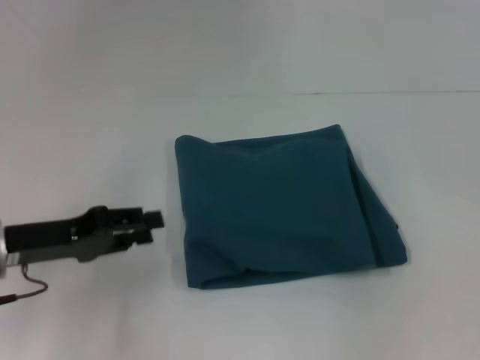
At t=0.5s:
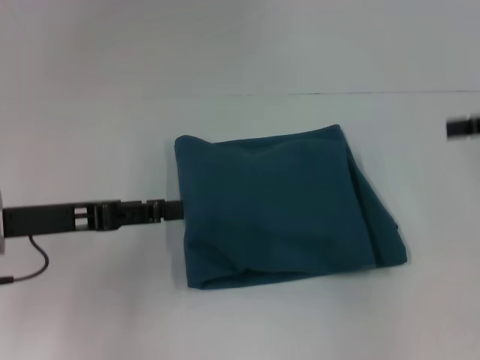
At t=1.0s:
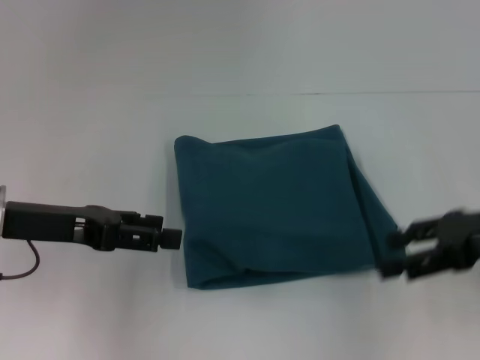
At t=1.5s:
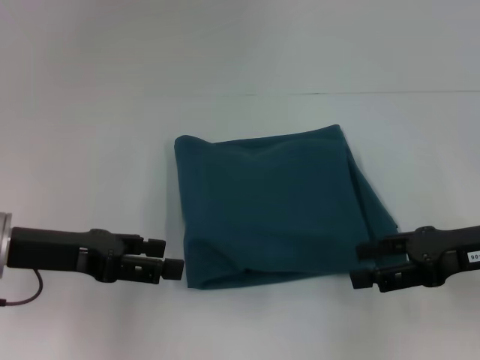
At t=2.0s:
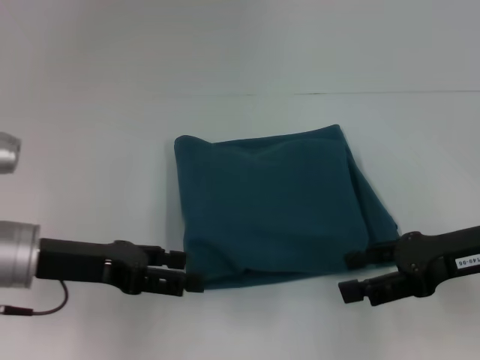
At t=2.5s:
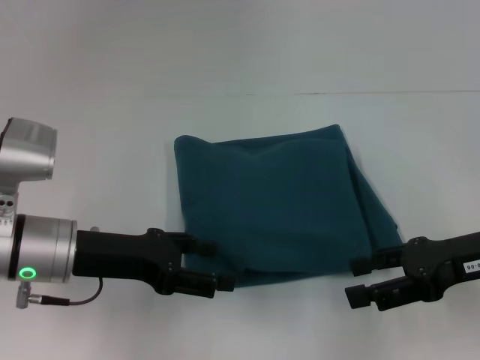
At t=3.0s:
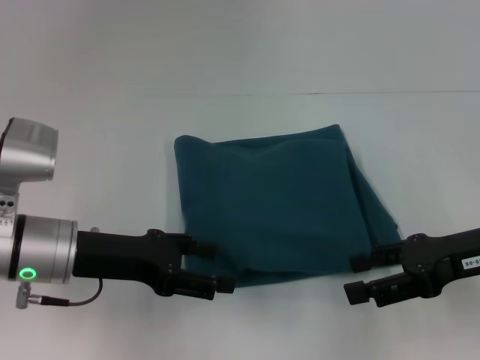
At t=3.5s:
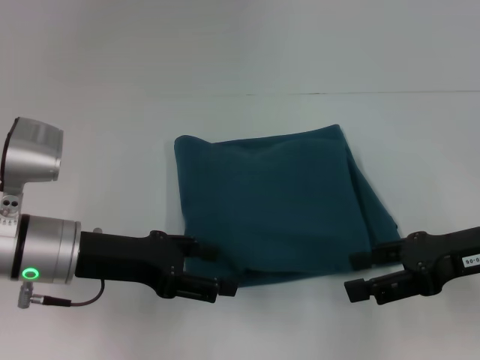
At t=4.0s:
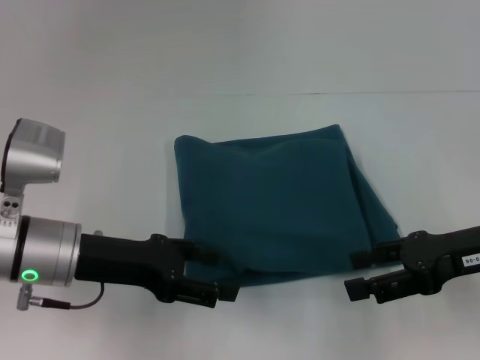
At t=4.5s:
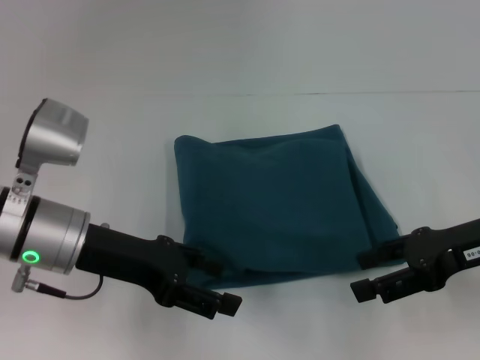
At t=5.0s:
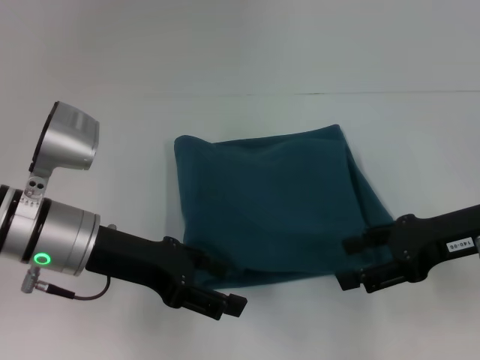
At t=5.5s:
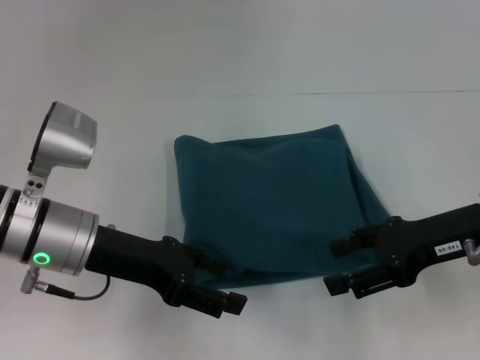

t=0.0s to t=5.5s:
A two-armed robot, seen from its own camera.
t=0.0s to t=2.0s: The left gripper opens up, while the right gripper travels to the left, downward and backward by approximately 20 cm.
t=2.0s to t=5.5s: The grippers stay close to where they were, moving slightly.

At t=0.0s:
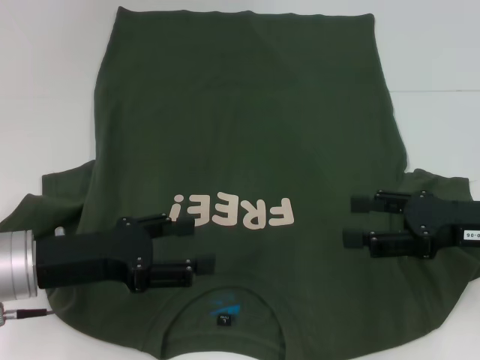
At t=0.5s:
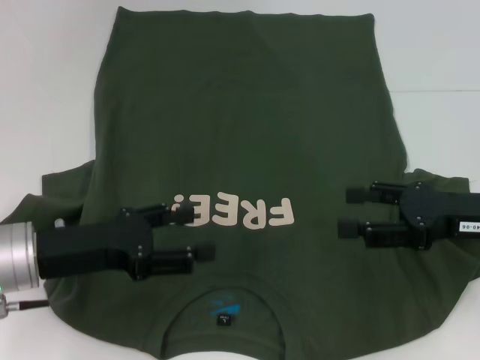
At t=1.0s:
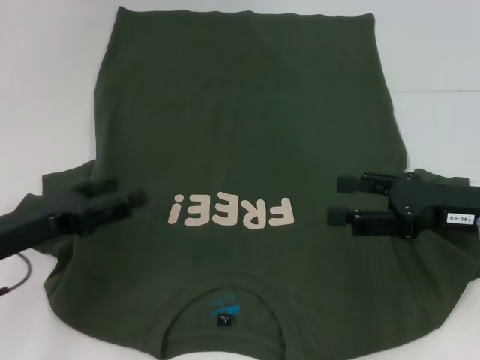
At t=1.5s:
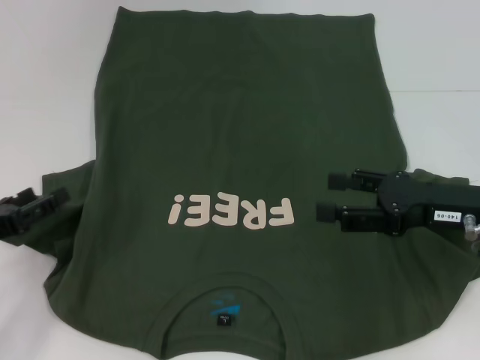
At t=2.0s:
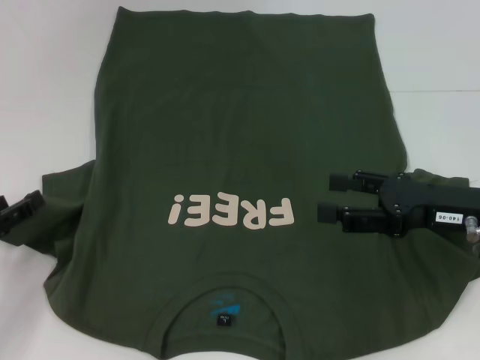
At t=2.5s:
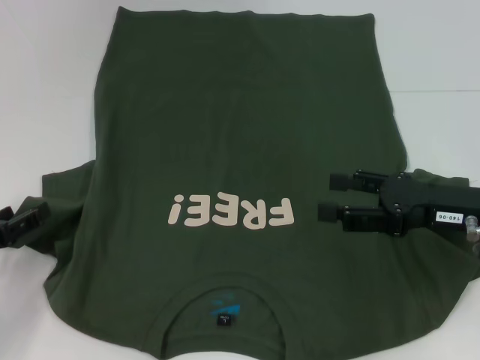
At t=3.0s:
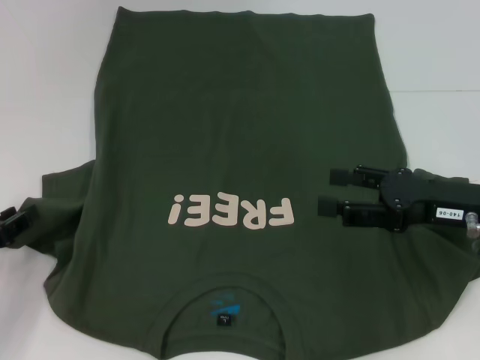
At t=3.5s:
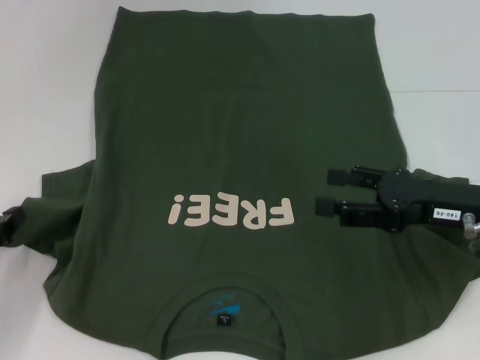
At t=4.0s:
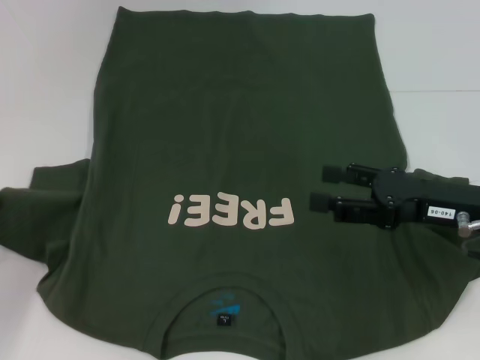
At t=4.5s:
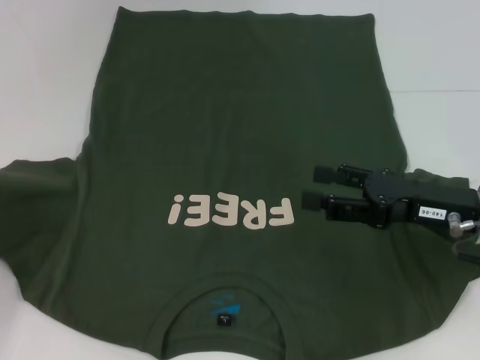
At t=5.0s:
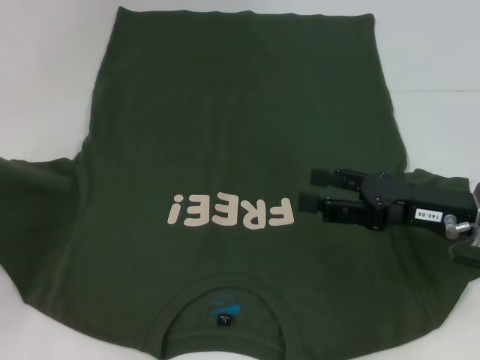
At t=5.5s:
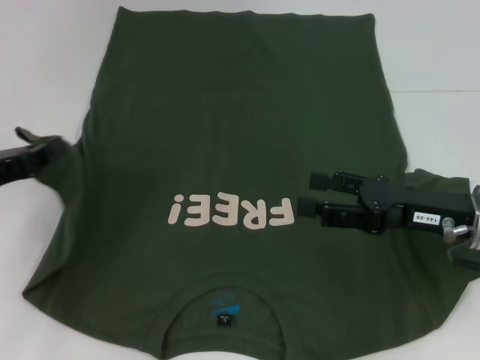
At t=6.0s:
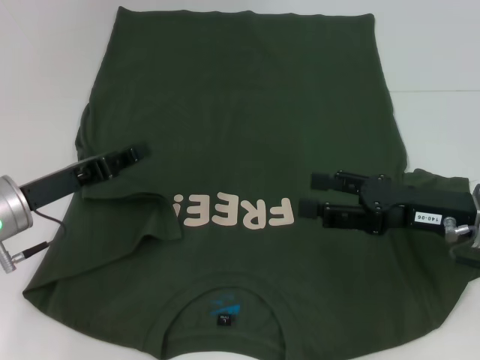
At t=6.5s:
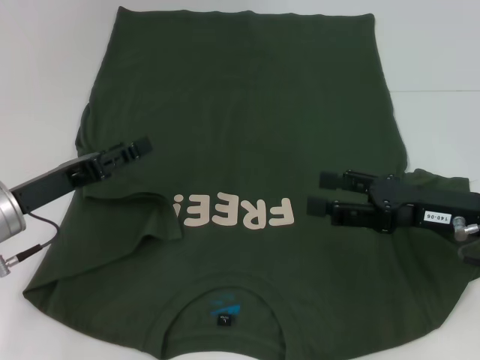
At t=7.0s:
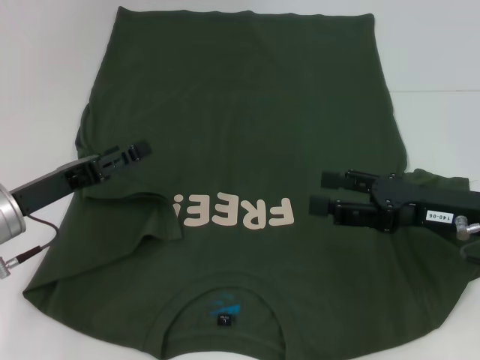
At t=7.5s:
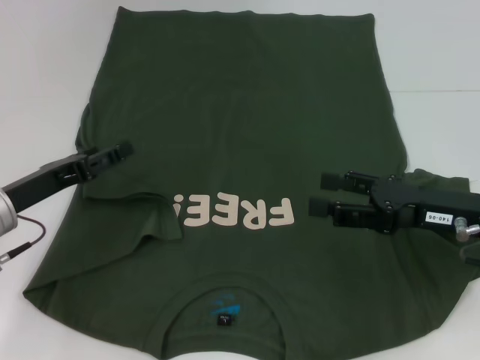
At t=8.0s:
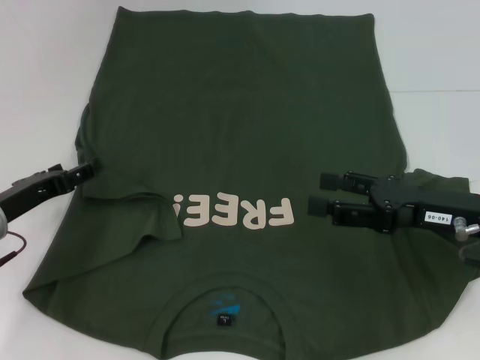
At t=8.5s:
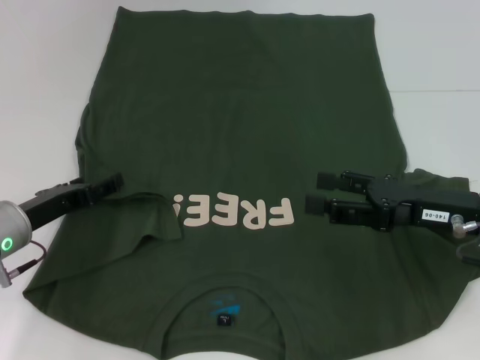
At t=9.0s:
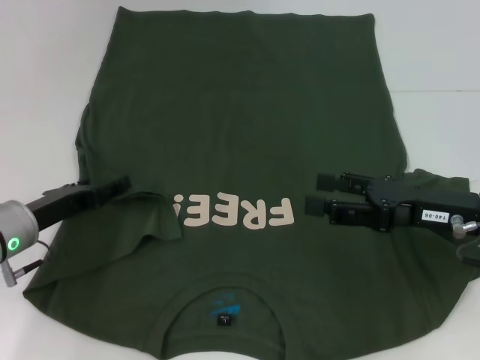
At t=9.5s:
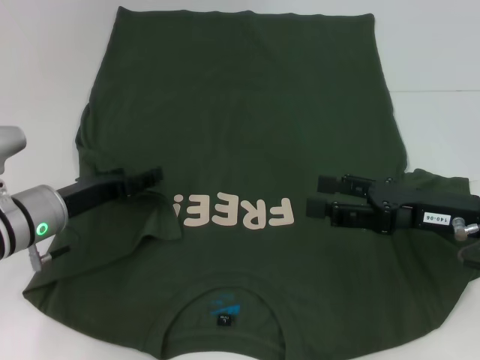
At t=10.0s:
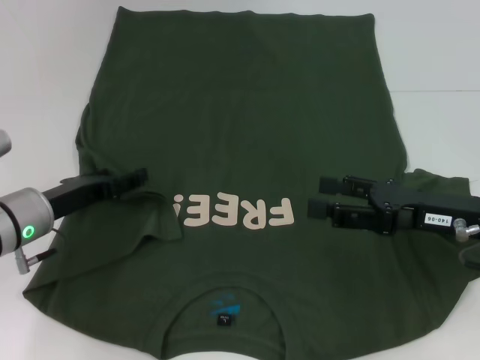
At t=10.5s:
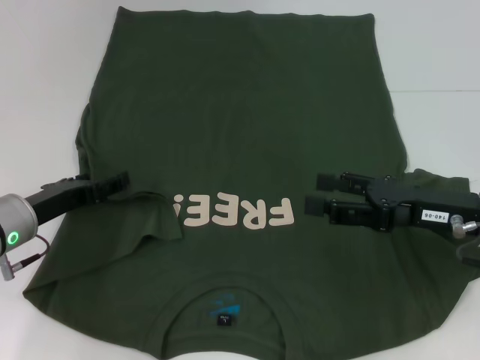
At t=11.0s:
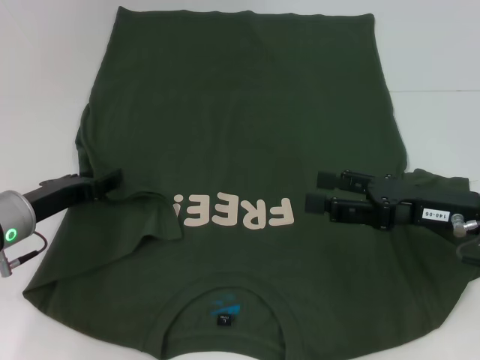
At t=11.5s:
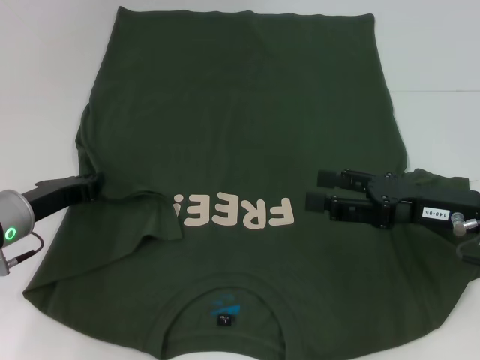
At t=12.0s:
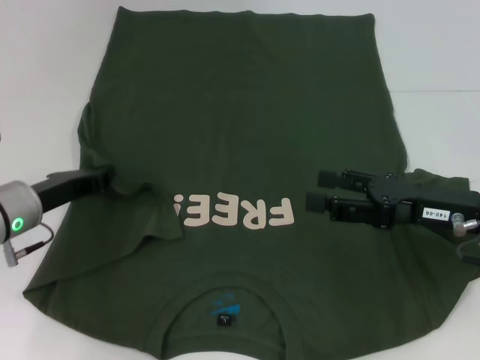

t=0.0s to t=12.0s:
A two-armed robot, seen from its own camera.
t=0.0s to t=2.0s: The left gripper goes approximately 10 cm to the left.
t=2.0s to t=4.0s: The left gripper closes up.
t=4.0s to t=6.0s: The left gripper is displaced to the right by about 10 cm.
t=6.0s to t=8.0s: The left gripper opens.
t=8.0s to t=10.0s: The grippers make only small movements.
t=10.0s to t=12.0s: The left gripper closes.

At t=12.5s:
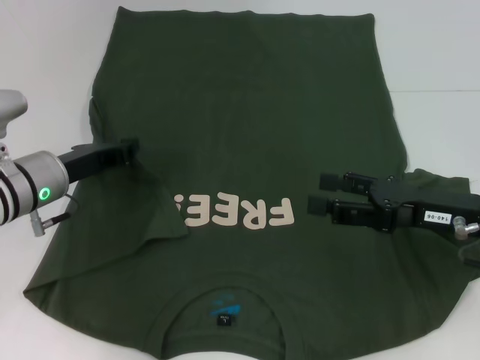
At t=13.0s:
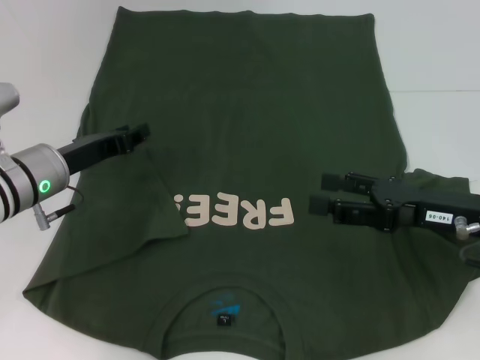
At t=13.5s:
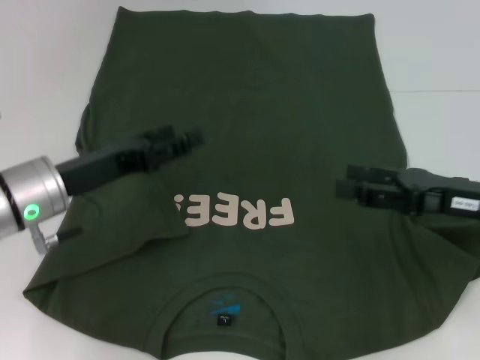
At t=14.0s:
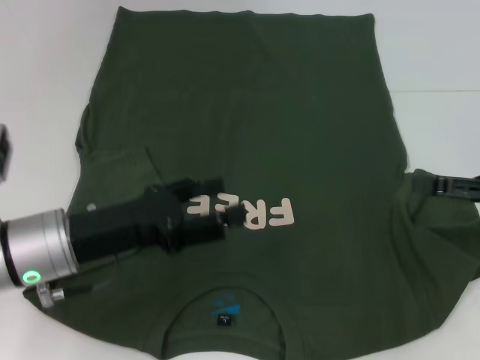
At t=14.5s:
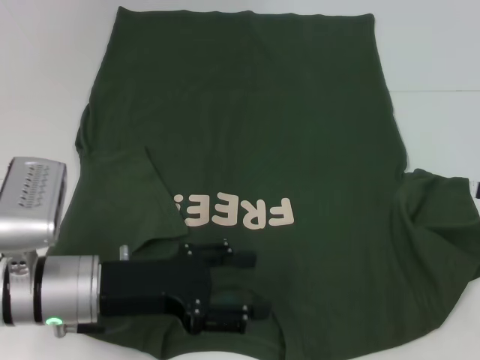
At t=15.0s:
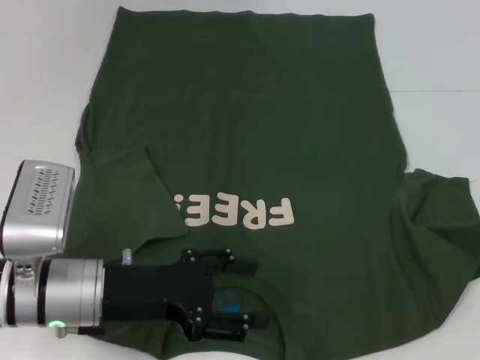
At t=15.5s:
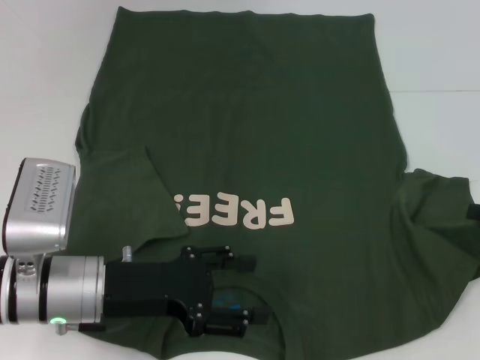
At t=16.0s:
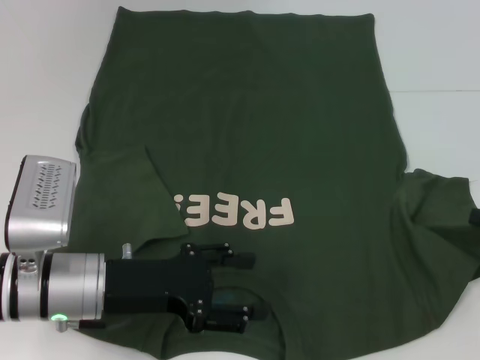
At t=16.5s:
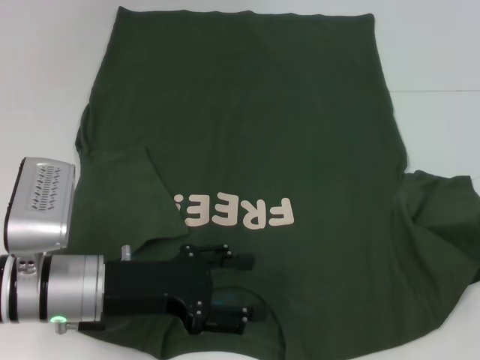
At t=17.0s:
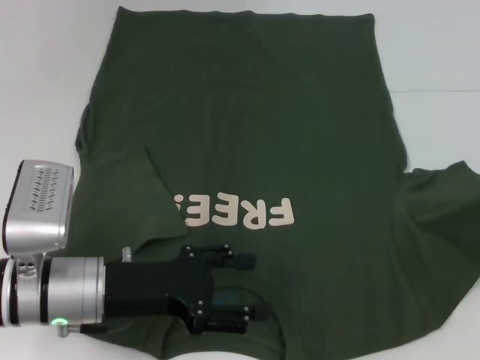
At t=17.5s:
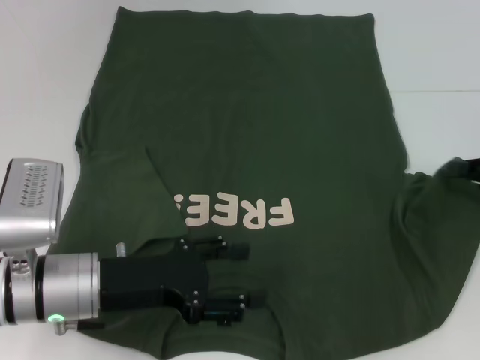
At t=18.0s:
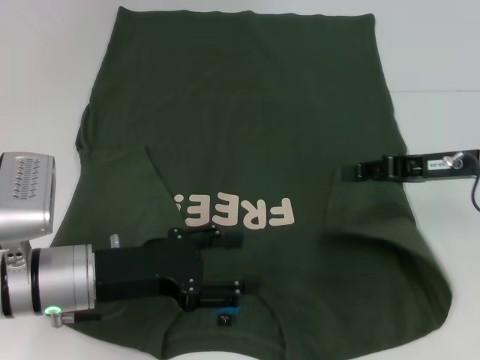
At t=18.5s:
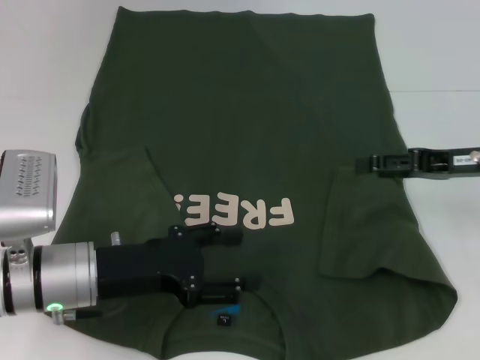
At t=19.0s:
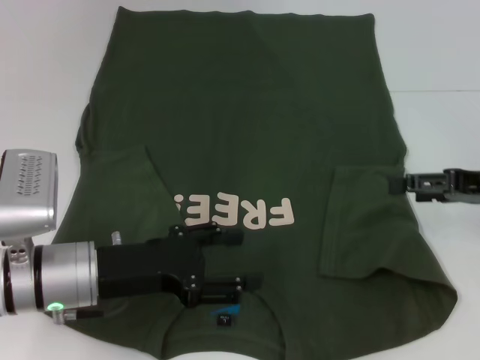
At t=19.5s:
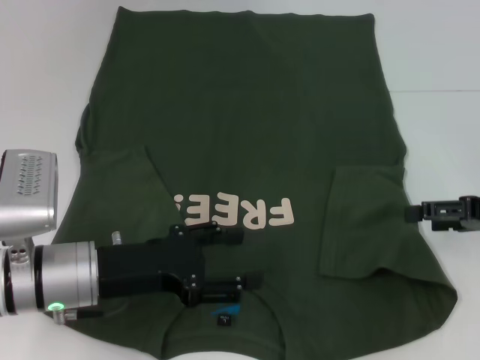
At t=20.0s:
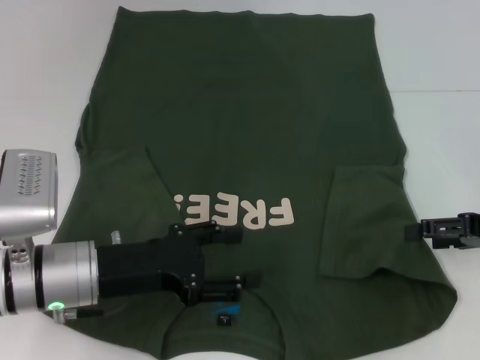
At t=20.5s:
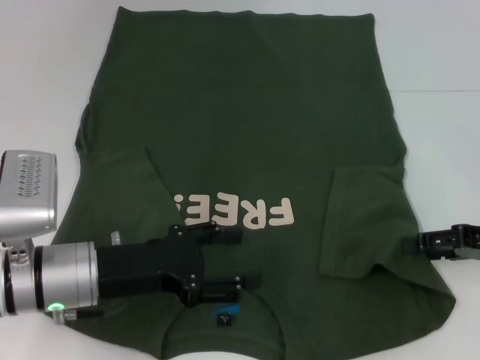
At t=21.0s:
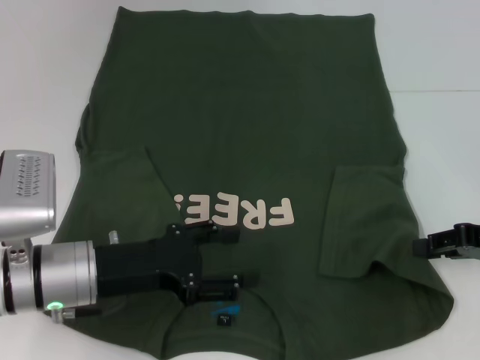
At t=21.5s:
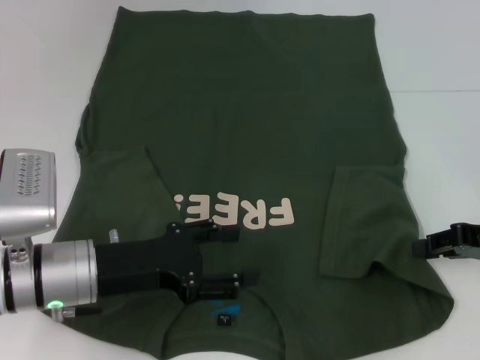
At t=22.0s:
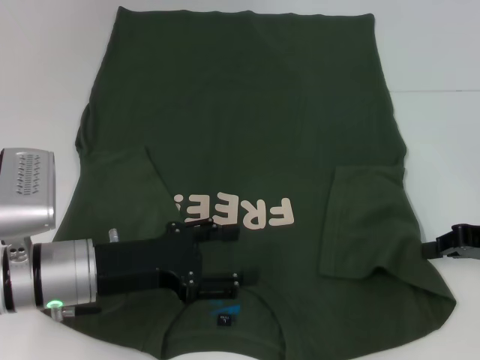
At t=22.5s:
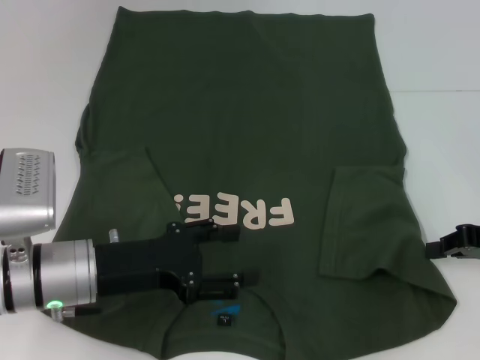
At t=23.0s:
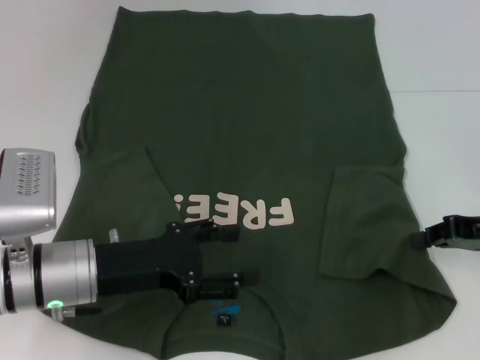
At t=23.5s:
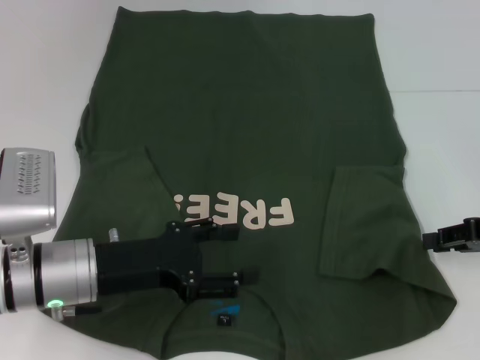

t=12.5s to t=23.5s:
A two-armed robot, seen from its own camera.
Step, t=13.5s to t=18.0s: Fold the bottom right sleeve with your right hand.
t=12.5s to t=14.5s: The right gripper moves to the right, roughly 15 cm. The left gripper is displaced backward by some 10 cm, and opens its fingers.
t=14.5s to t=16.0s: The grippers make only small movements.
t=16.0s to t=18.0s: The right gripper shifts approximately 15 cm to the left and forward, and closes.
t=18.0s to t=20.0s: The right gripper travels to the right by some 5 cm, and opens its fingers.
t=20.0s to t=21.5s: The right gripper closes.
t=21.5s to t=23.5s: Both grippers stay put.
